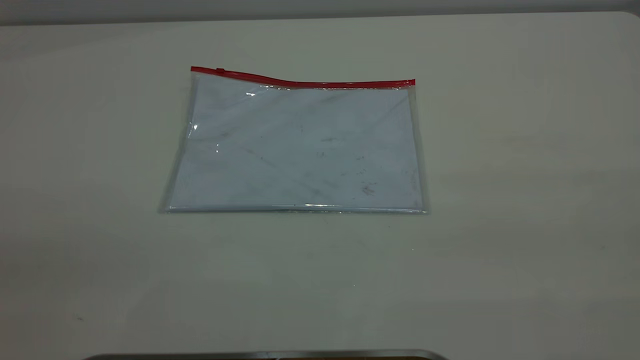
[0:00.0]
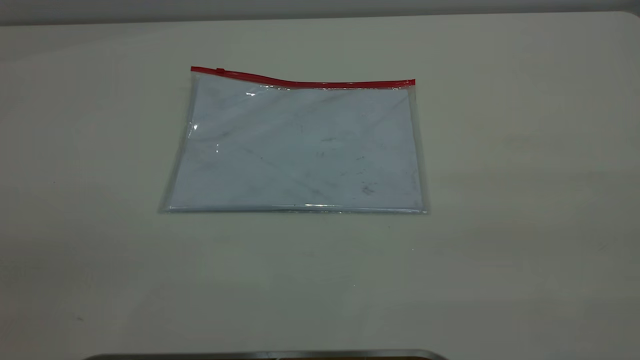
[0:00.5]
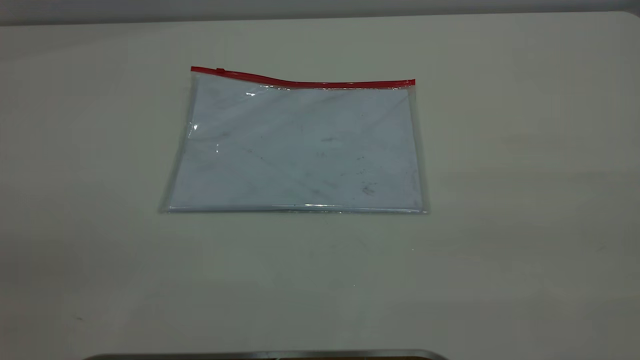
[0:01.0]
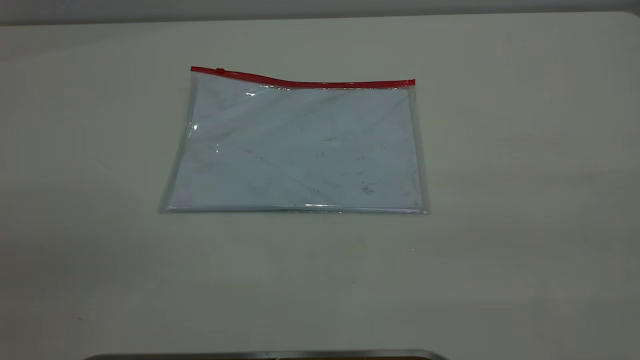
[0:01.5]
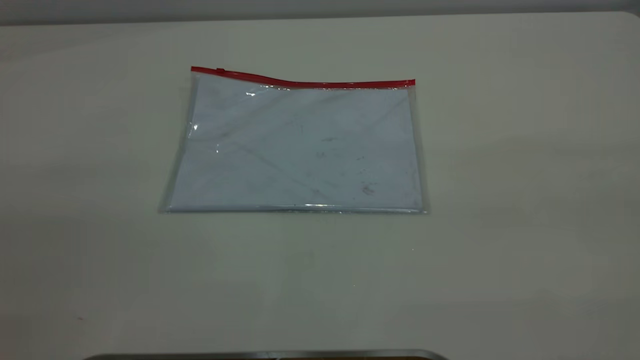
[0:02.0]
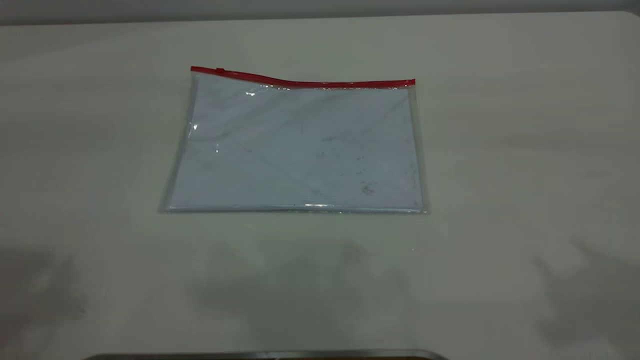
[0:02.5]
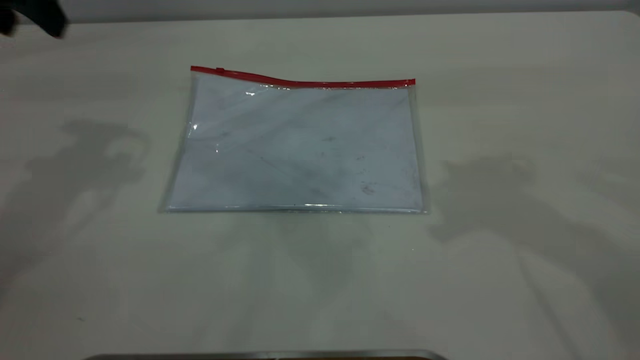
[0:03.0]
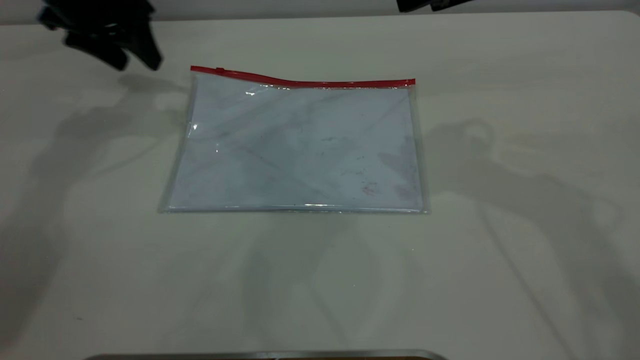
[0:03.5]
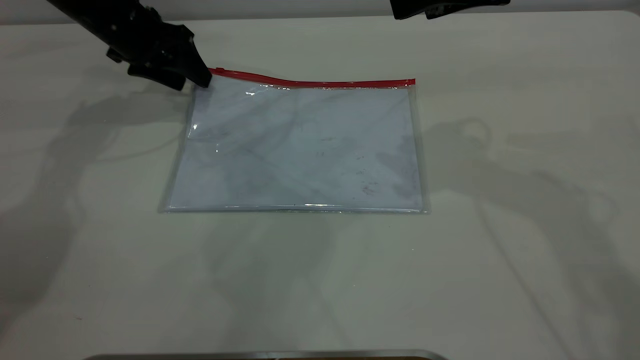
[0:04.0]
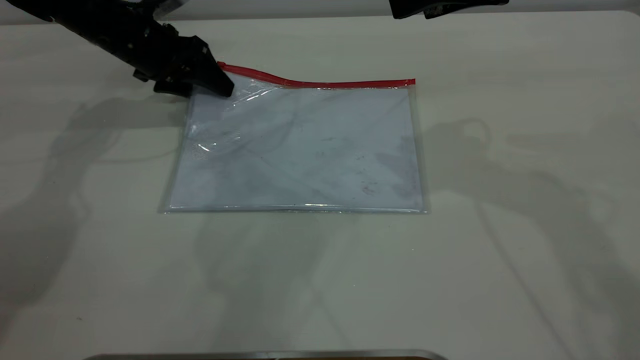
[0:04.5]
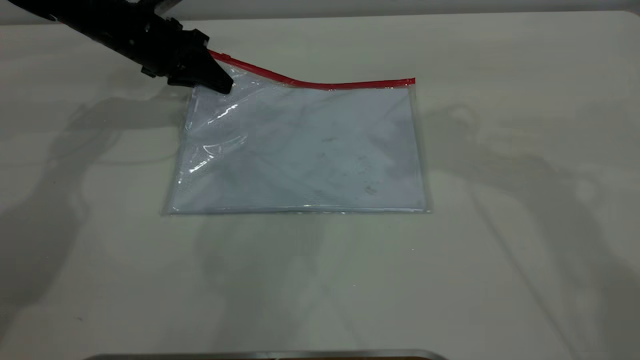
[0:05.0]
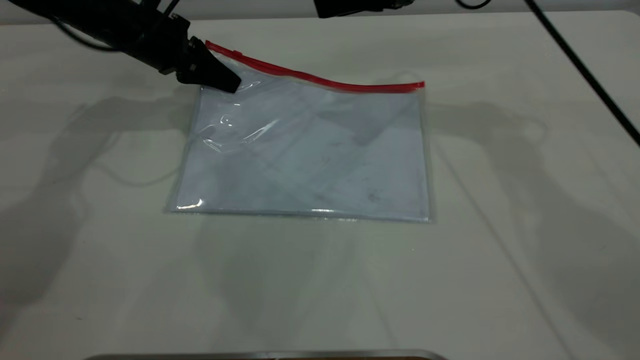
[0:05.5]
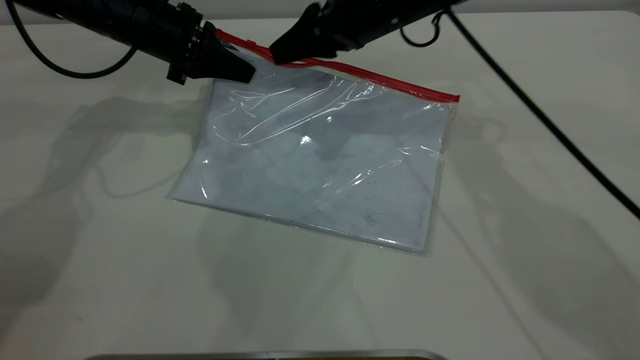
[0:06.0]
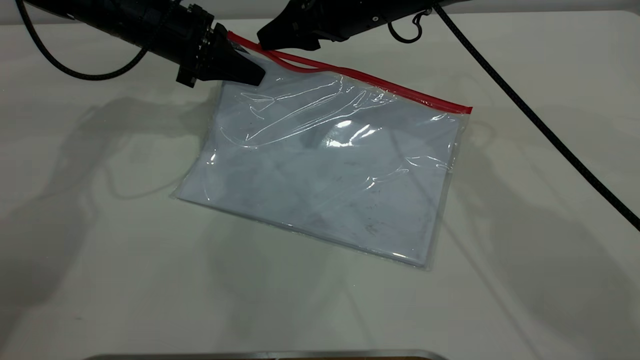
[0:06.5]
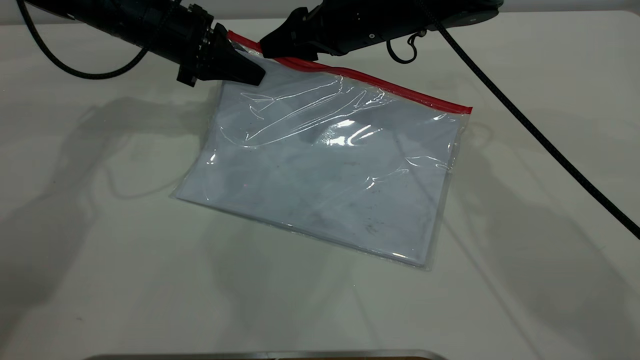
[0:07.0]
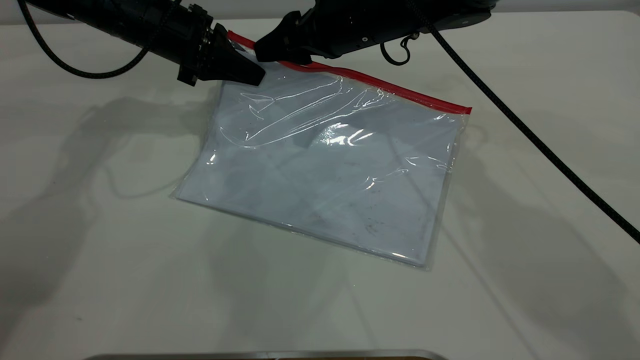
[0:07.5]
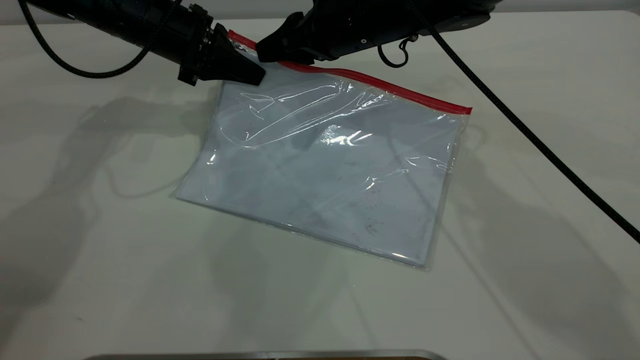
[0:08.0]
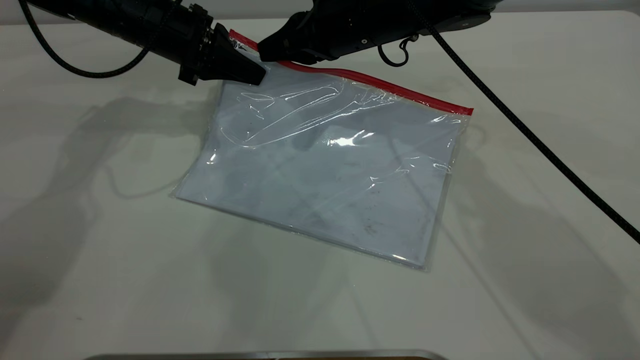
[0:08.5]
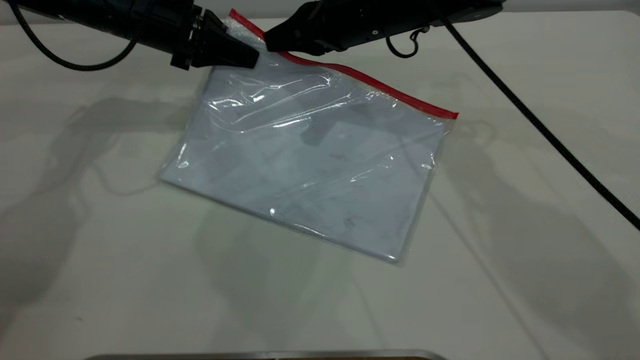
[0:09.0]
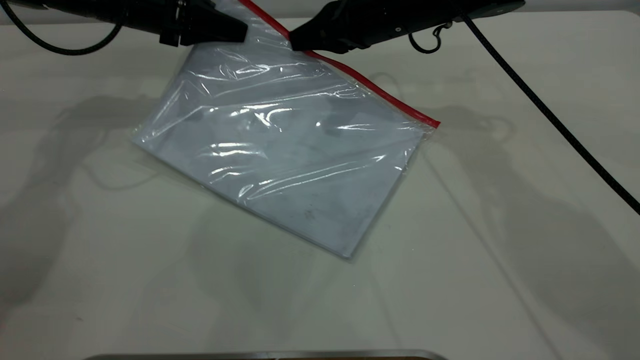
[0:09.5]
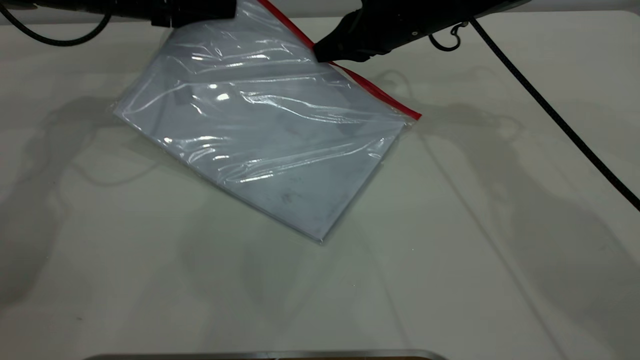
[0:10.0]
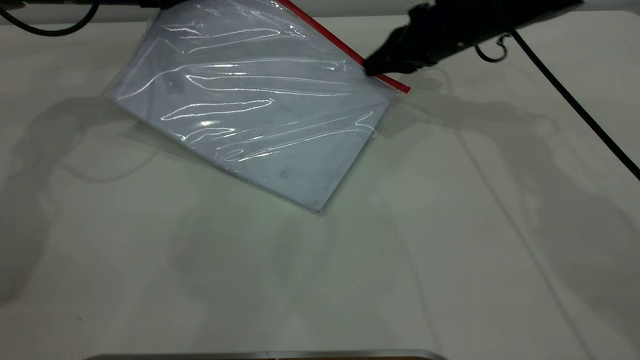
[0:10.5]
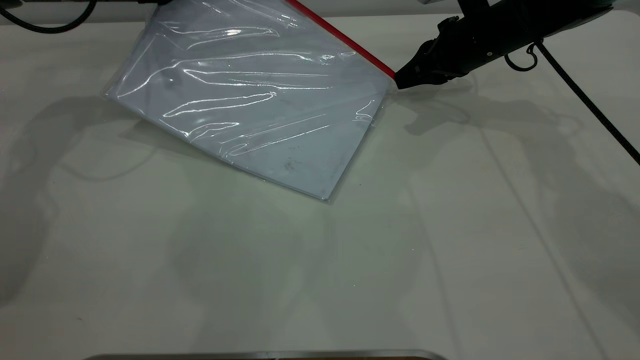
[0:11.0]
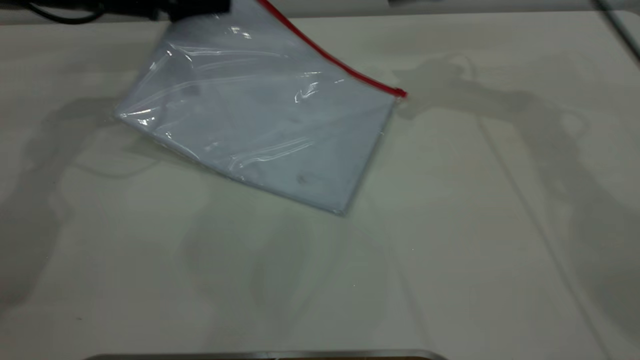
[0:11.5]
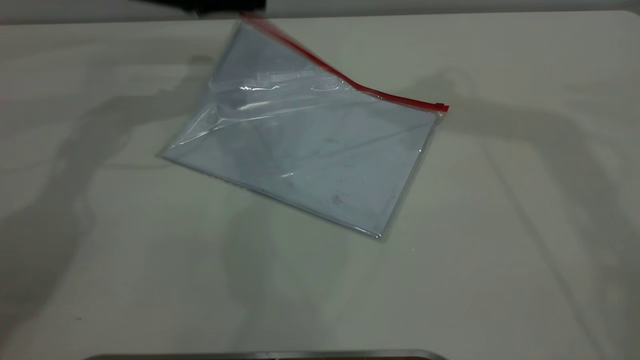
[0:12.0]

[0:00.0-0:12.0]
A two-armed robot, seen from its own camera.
Step, 0:00.0 to 0:05.5: Pick up the transparent plastic bag with the left gripper.
Step, 0:06.0 to 0:11.0: Pulling up the zipper on the transparent plastic bag with the right gripper to close it.
Step, 0:11.5 to 0:12.0: Place the transparent plastic bag.
0:02.0 to 0:04.0: The left gripper goes some 50 cm forward and downward. Meanwhile the right gripper is displaced forward and downward by some 35 cm.
0:04.0 to 0:06.0: The left gripper closes up. The right gripper is displaced to the left, downward and forward by about 20 cm.
0:06.0 to 0:08.0: The right gripper closes up.
0:08.0 to 0:10.0: The right gripper travels to the right by about 5 cm. The left gripper ends up roughly 5 cm from where it was.
0:10.0 to 0:12.0: The right gripper goes approximately 30 cm upward, and opens up. Meanwhile the left gripper opens its fingers.

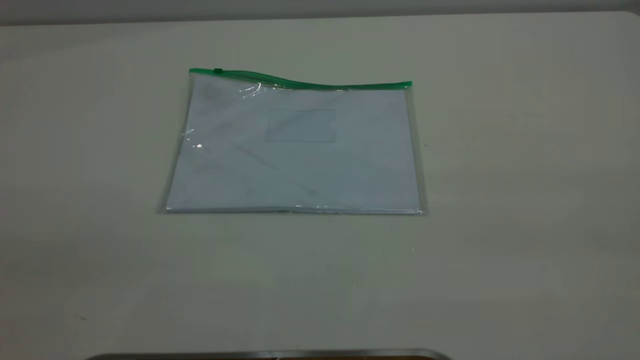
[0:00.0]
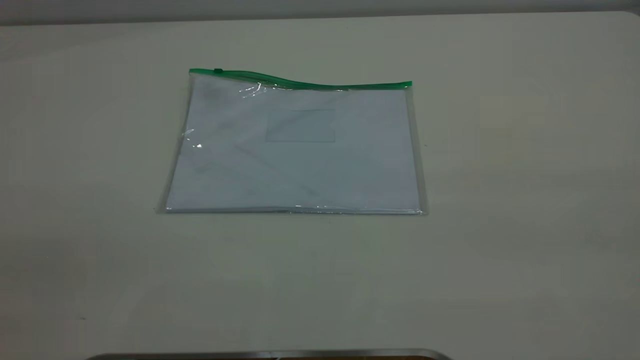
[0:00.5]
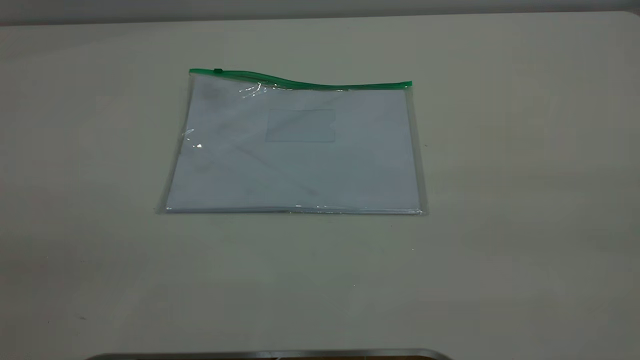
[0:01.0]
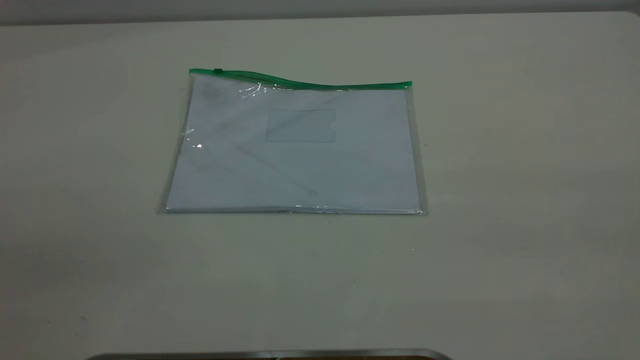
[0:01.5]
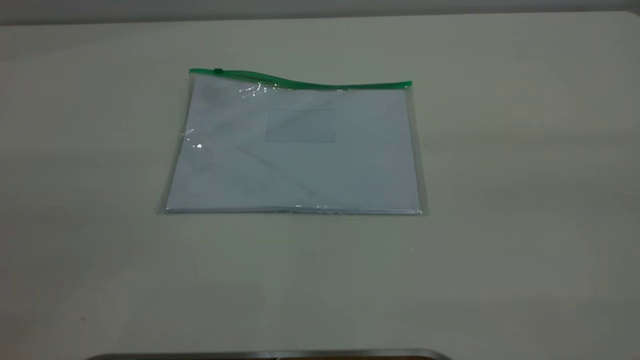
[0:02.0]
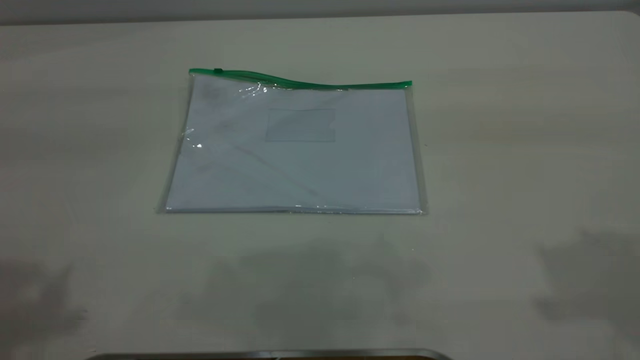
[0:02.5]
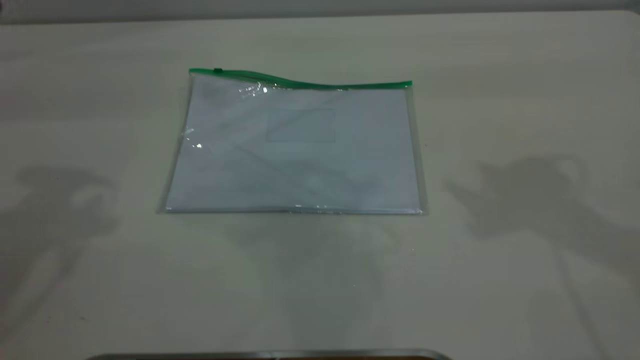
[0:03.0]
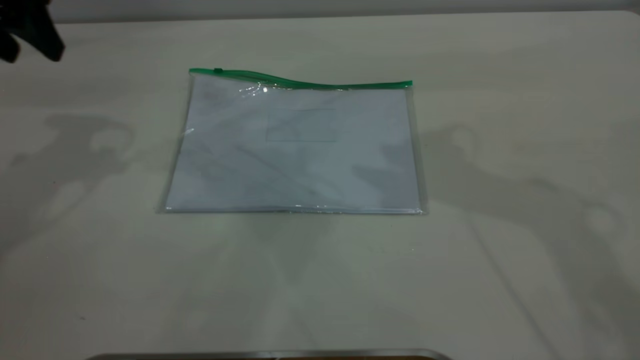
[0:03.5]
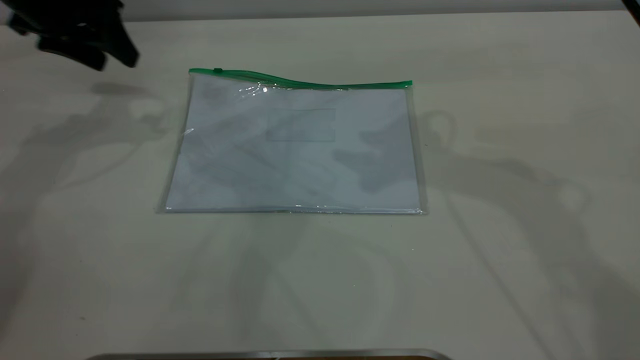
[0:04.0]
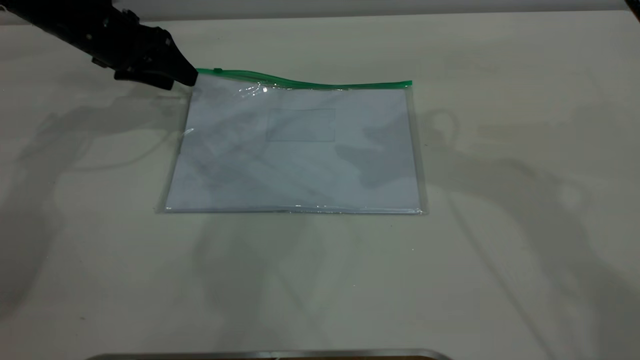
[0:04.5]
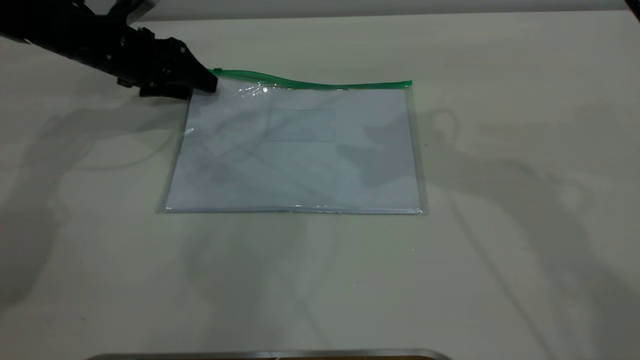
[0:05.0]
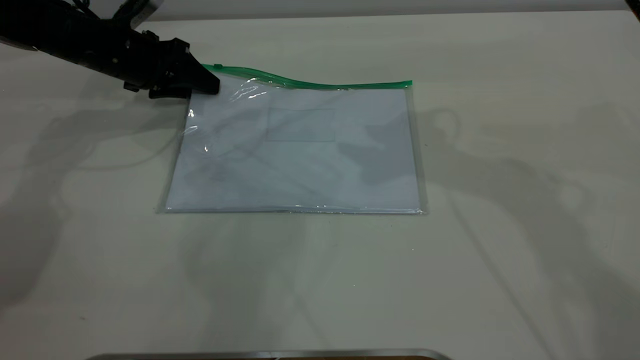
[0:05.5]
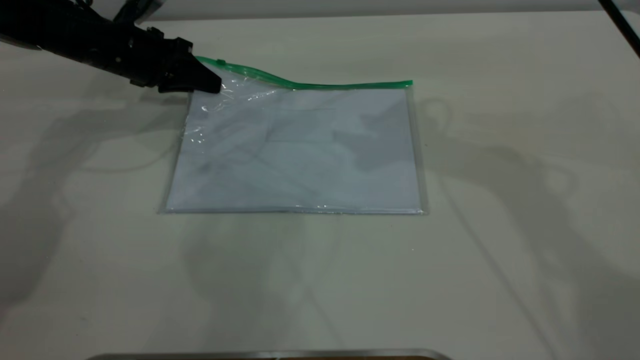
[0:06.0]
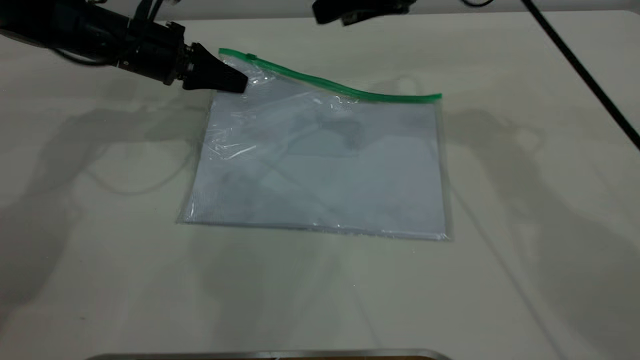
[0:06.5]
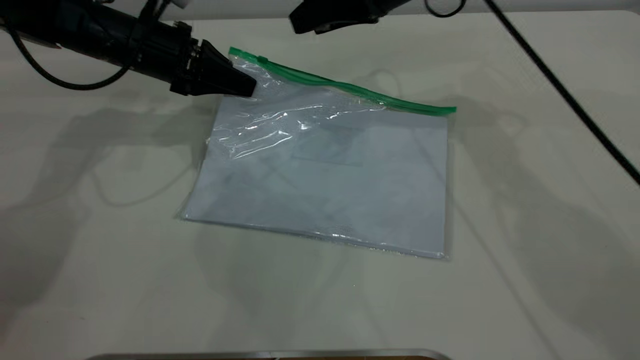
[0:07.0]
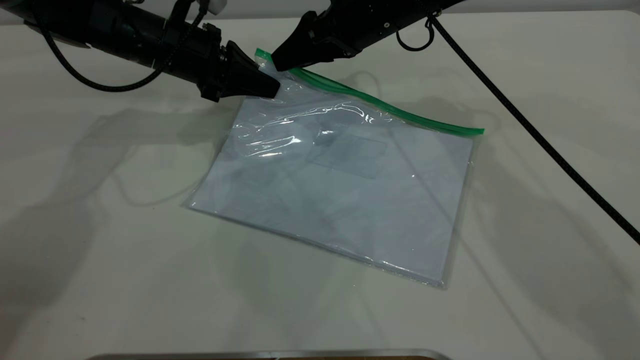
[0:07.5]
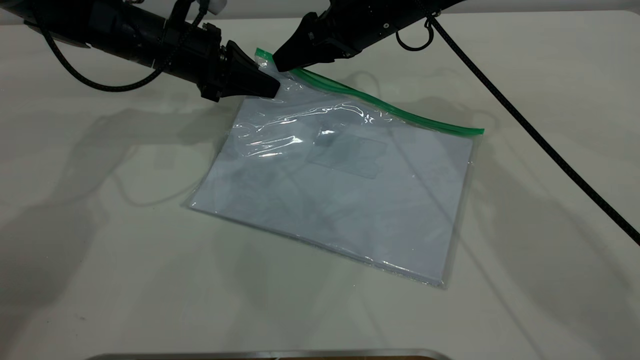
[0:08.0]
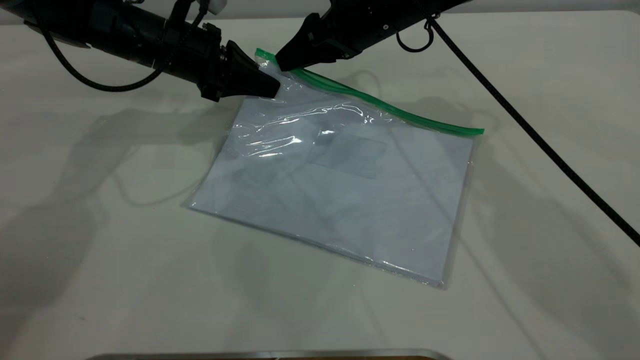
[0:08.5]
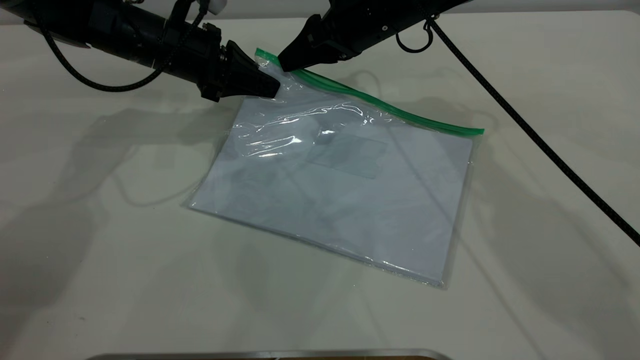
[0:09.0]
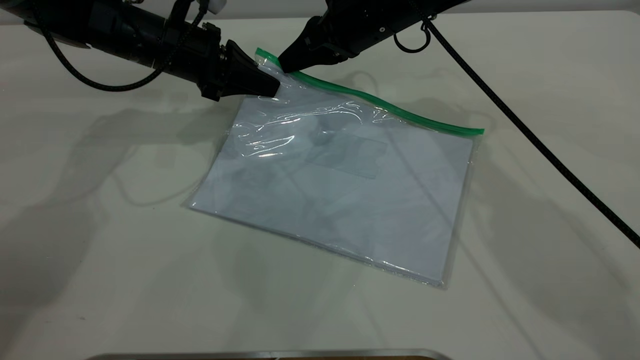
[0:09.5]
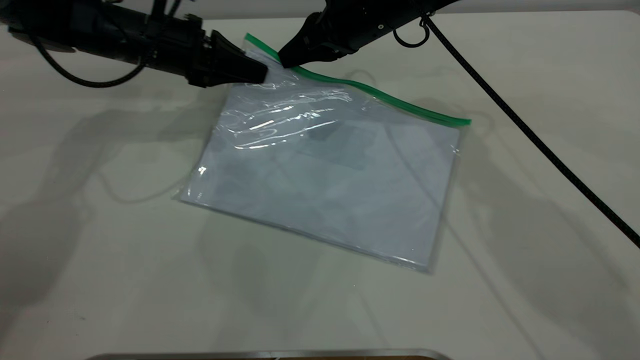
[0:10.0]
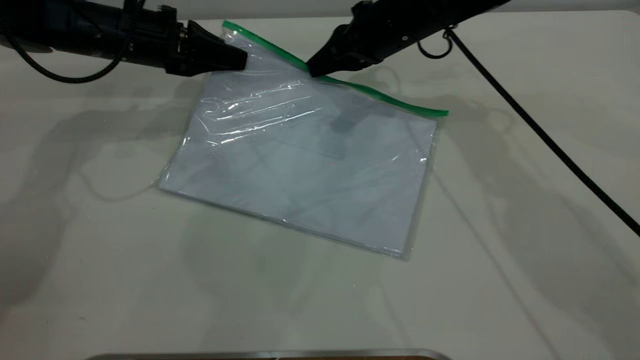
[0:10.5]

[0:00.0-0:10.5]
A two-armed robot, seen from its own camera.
Step, 0:00.0 to 0:06.5: Pick up the transparent plastic bag with the left gripper.
0:02.0 to 0:04.0: The left gripper heads forward and downward, covering about 50 cm.
0:04.0 to 0:06.5: The right gripper goes some 10 cm forward and downward. The left gripper travels downward and to the right by approximately 10 cm, and closes up.
0:06.5 to 0:08.5: The right gripper travels downward by approximately 5 cm.
0:08.5 to 0:10.5: The left gripper moves about 5 cm, while the right gripper closes up.
